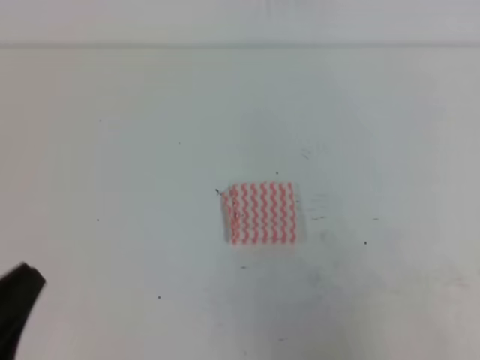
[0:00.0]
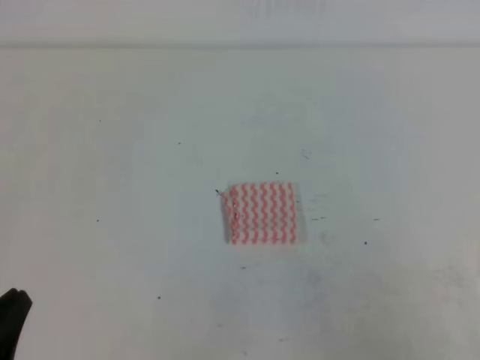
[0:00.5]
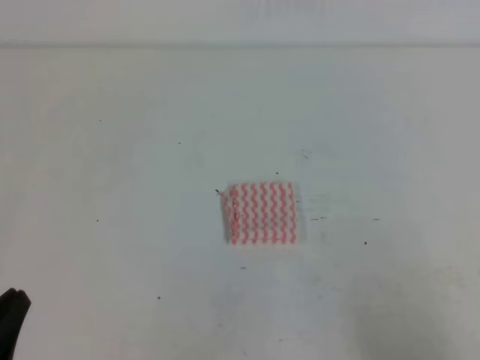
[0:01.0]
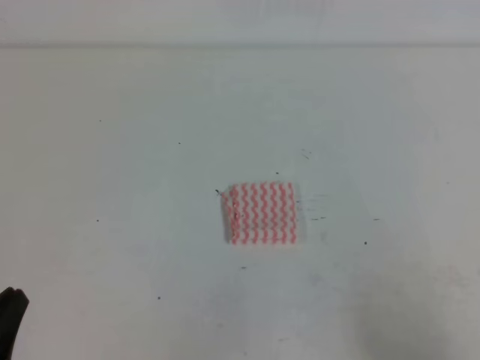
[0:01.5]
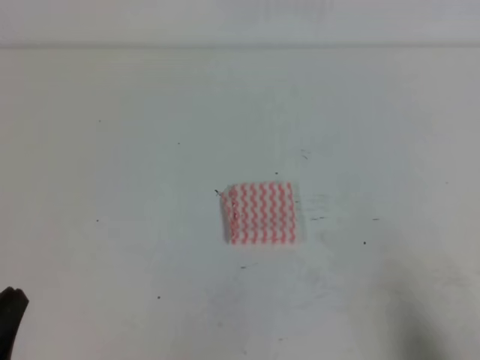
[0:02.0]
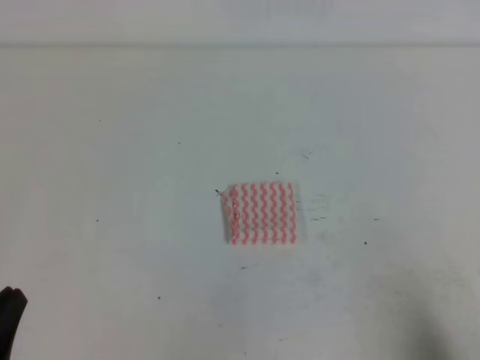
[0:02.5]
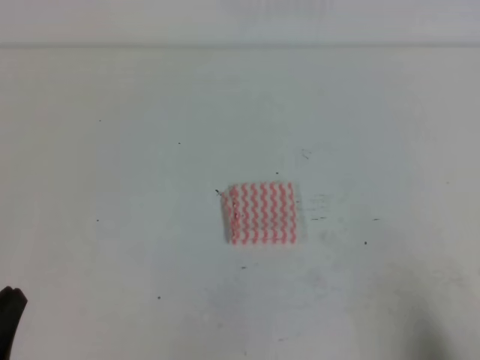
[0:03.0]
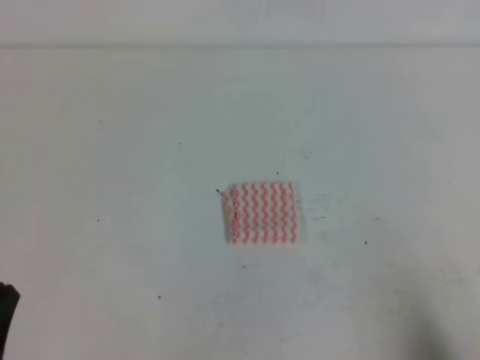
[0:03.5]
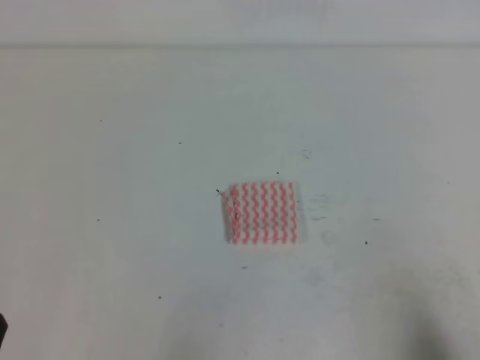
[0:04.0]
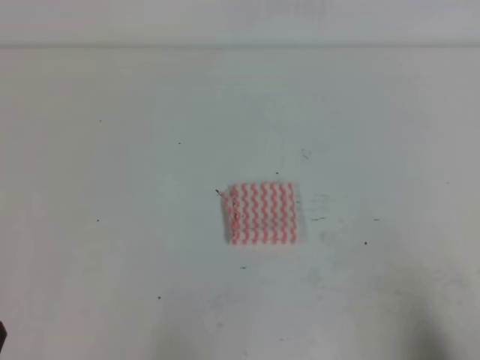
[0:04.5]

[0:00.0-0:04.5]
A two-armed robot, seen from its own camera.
Step, 0.0 to 4.5 s: Fold the towel.
0.0 to 2.0 s: The right gripper moves downward, roughly 15 cm, while the left gripper heads downward, covering approximately 5 cm.

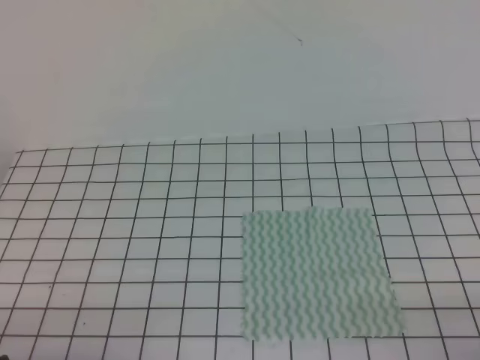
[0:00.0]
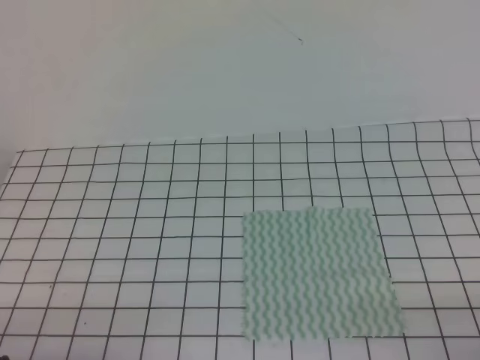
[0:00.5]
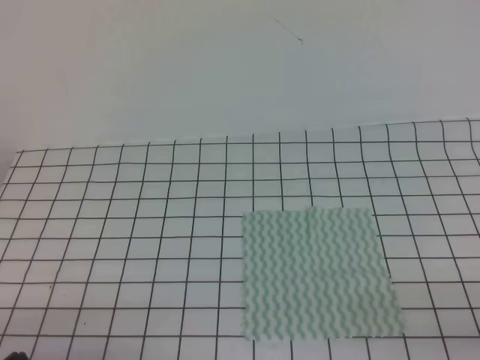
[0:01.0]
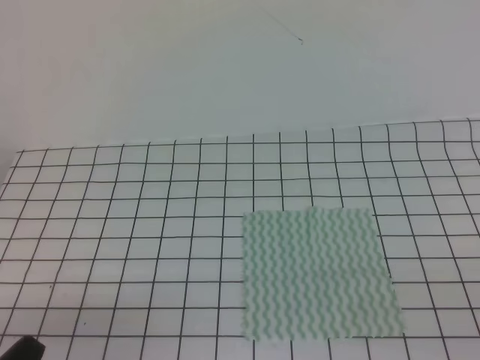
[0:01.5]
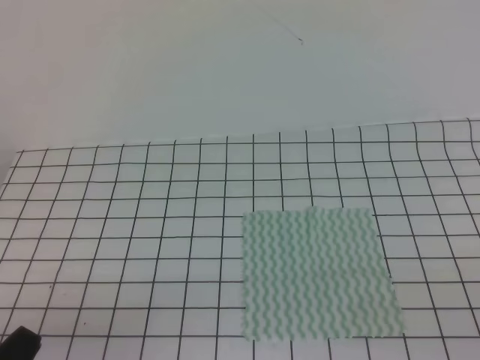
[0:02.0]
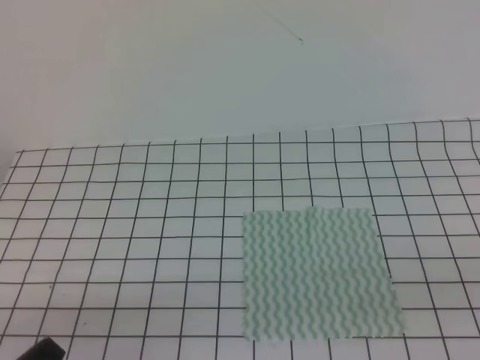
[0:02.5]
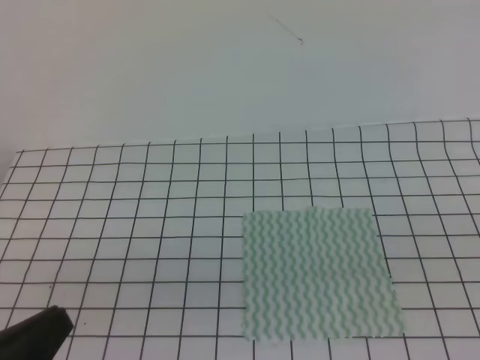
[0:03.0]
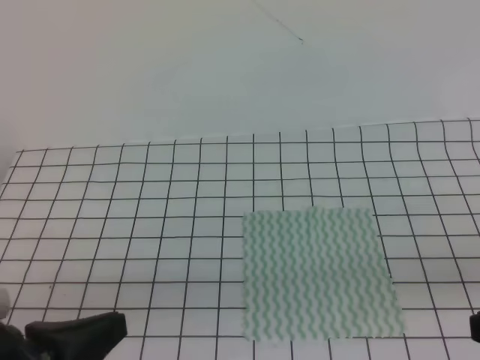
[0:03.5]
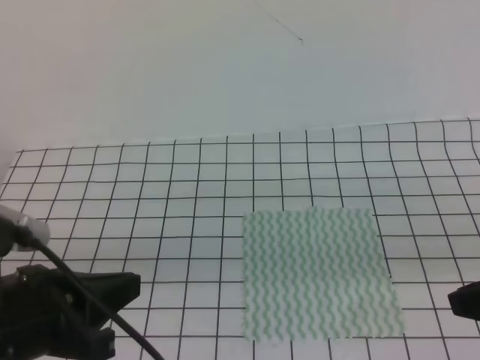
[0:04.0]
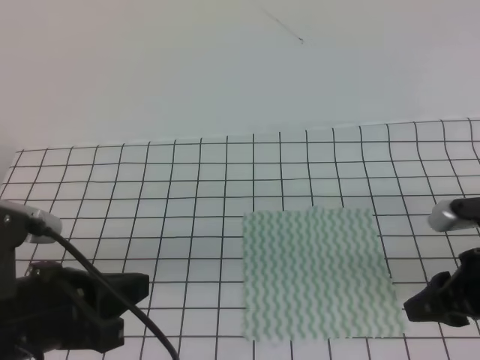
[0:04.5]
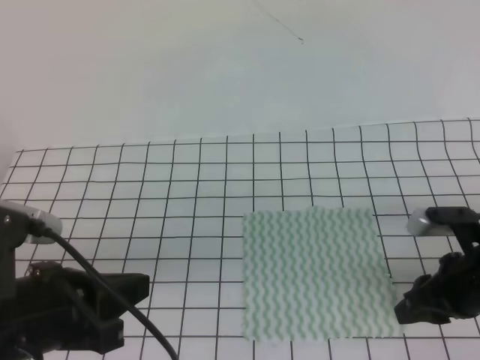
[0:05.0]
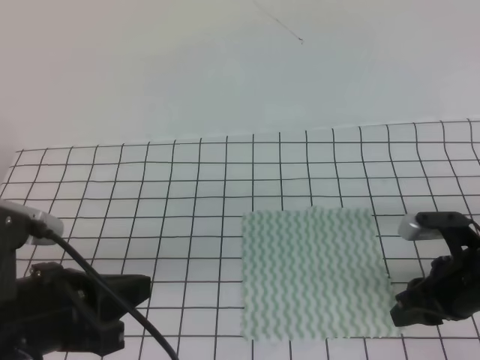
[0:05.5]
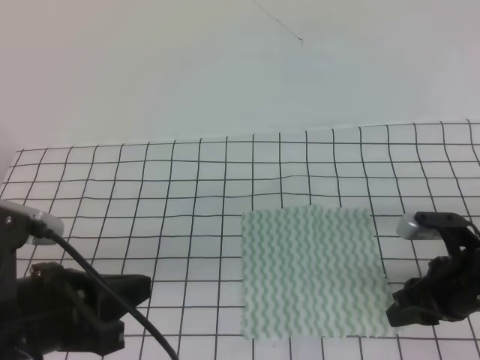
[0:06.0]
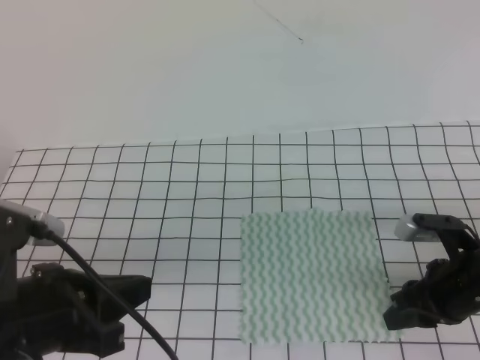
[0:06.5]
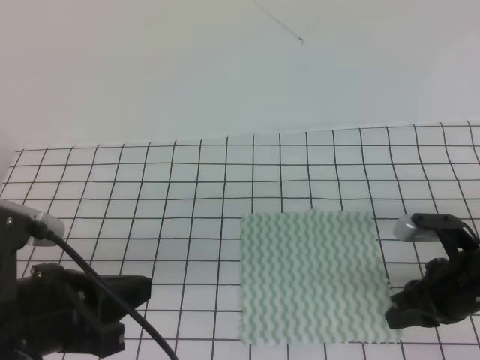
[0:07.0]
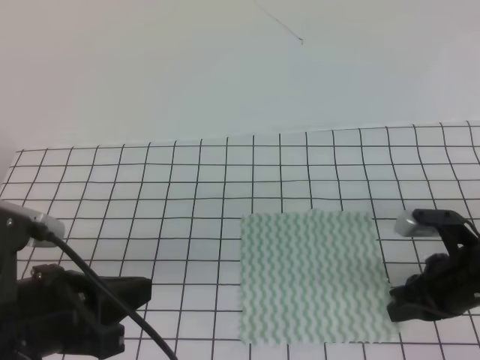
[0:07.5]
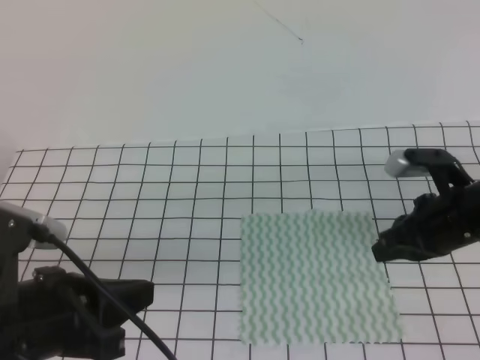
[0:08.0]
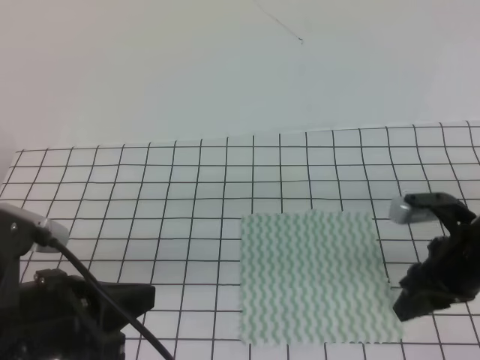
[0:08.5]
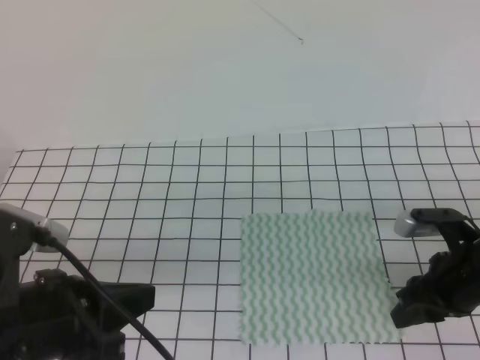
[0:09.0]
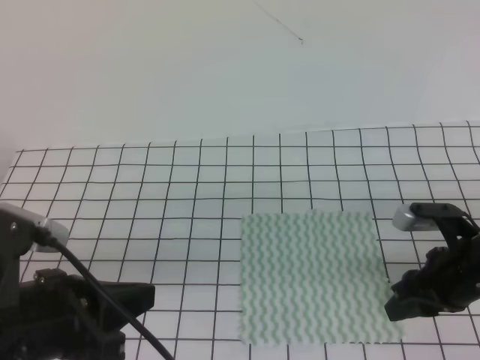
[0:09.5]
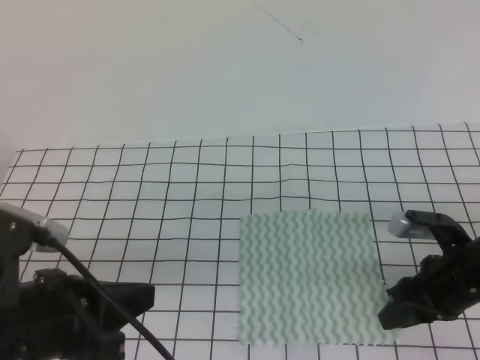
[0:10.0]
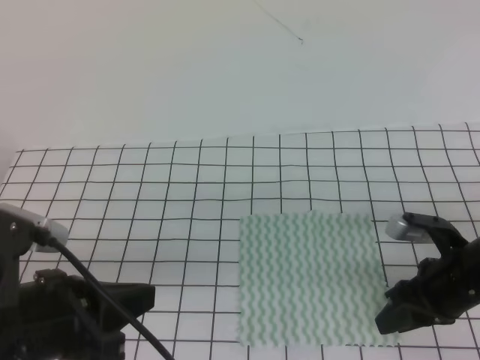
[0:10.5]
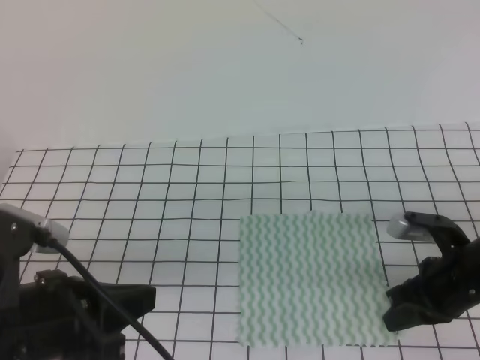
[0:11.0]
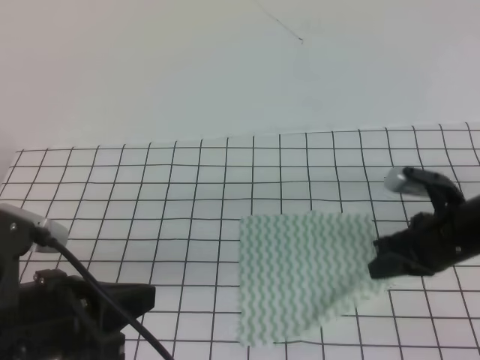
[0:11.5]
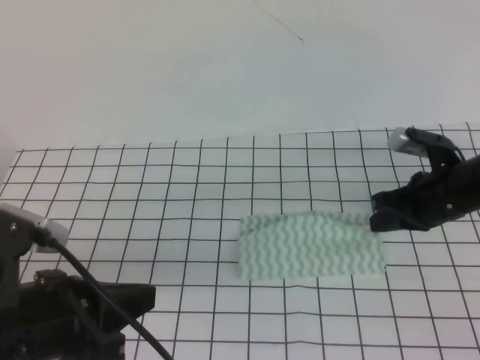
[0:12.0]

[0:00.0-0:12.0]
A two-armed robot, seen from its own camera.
2.0 to 4.0 s: The left gripper heads forward, upward and to the right, covering approximately 15 cm.
4.0 to 6.0 s: The right gripper goes approximately 15 cm downward and forward.
6.0 to 8.0 s: The right gripper changes place by approximately 5 cm, and closes.
8.0 to 10.0 s: The right gripper ends up roughly 5 cm from where it was, and opens its fingers.
10.0 to 12.0 s: The right gripper heads forward, covering some 10 cm, and closes up.

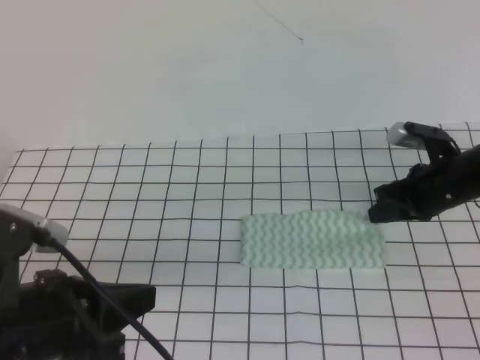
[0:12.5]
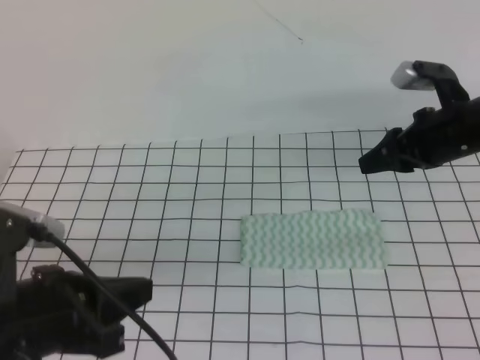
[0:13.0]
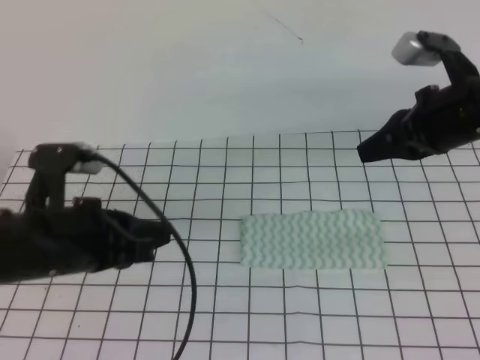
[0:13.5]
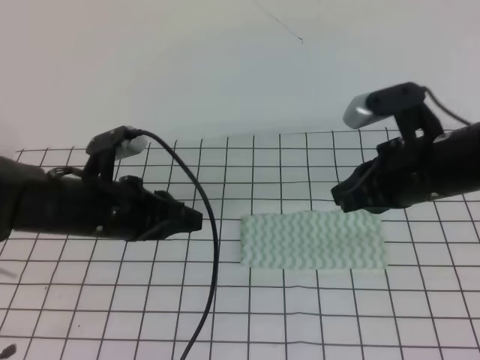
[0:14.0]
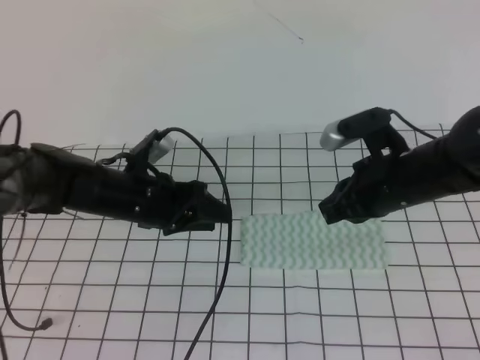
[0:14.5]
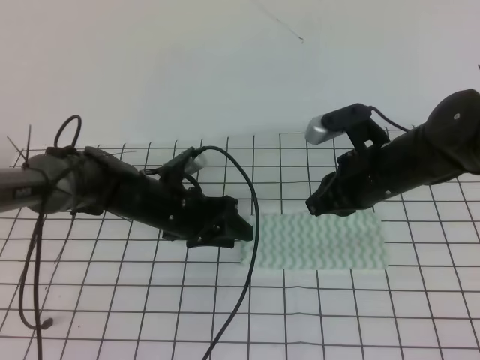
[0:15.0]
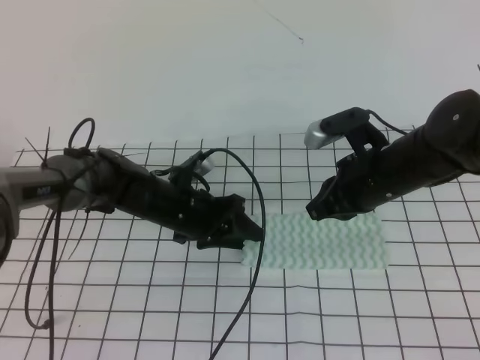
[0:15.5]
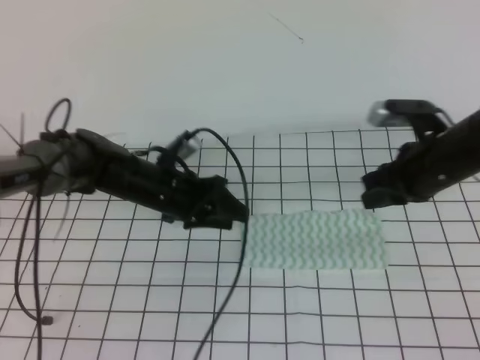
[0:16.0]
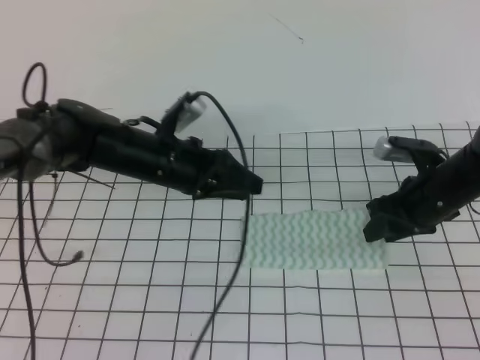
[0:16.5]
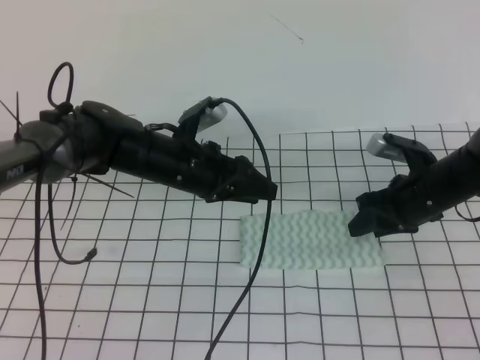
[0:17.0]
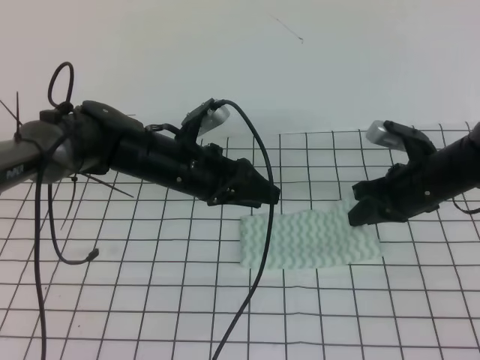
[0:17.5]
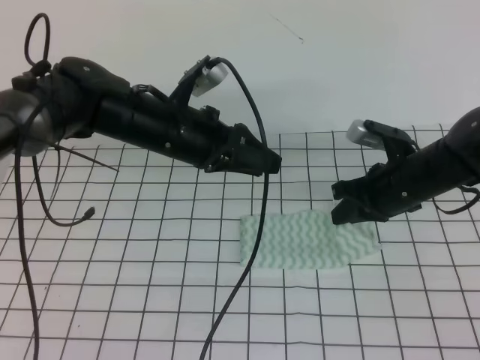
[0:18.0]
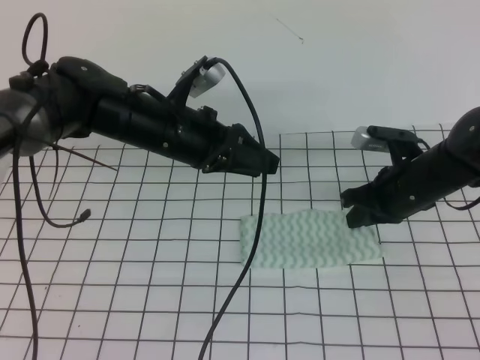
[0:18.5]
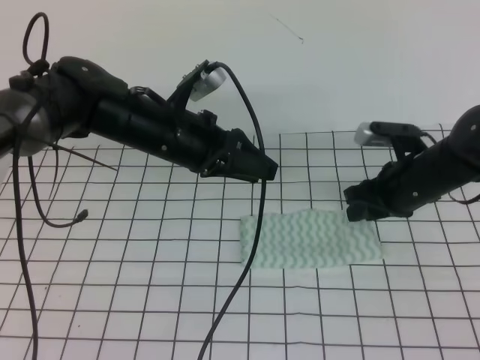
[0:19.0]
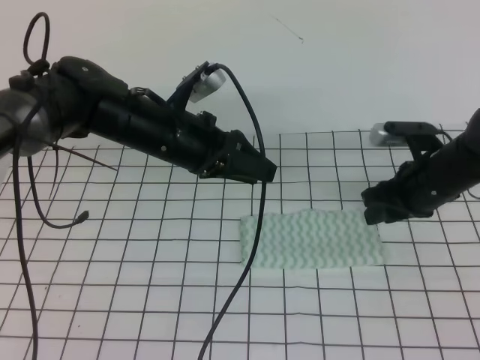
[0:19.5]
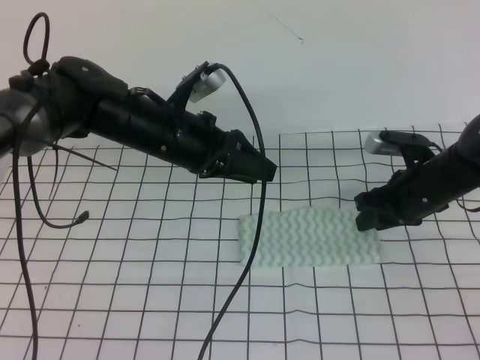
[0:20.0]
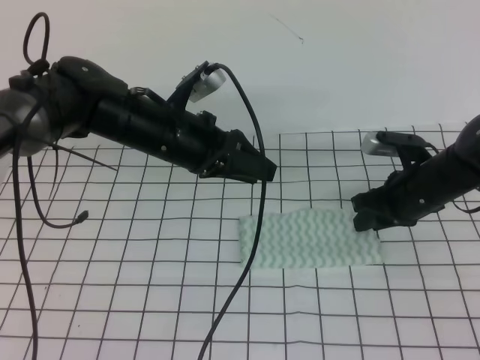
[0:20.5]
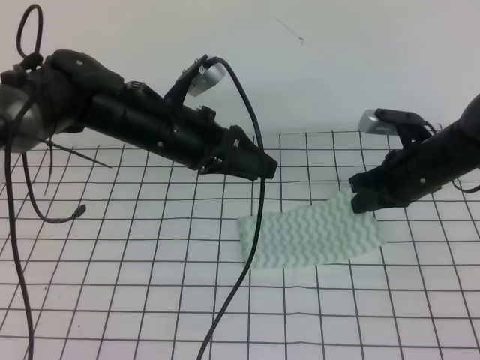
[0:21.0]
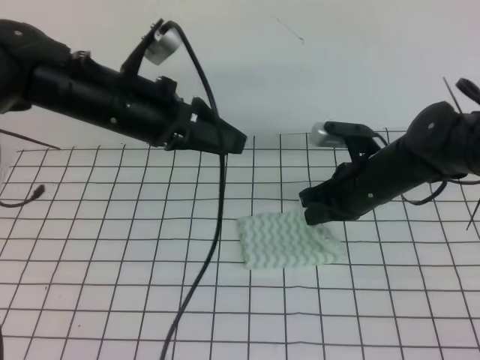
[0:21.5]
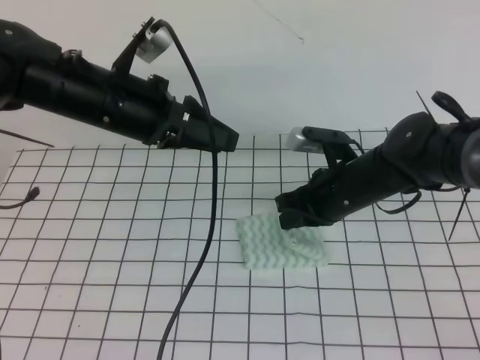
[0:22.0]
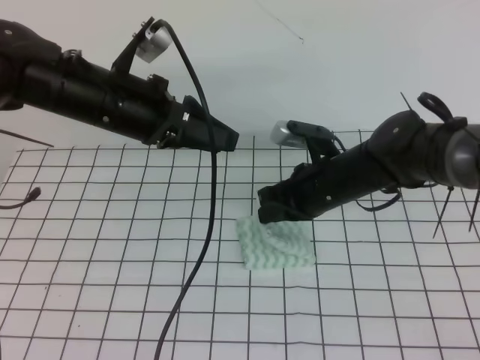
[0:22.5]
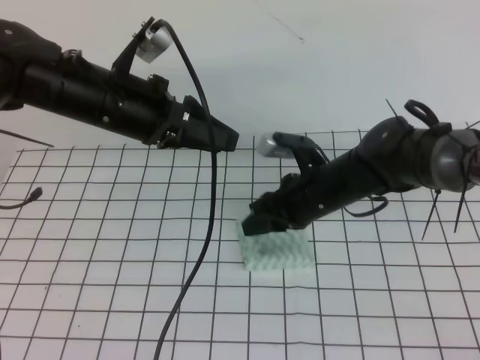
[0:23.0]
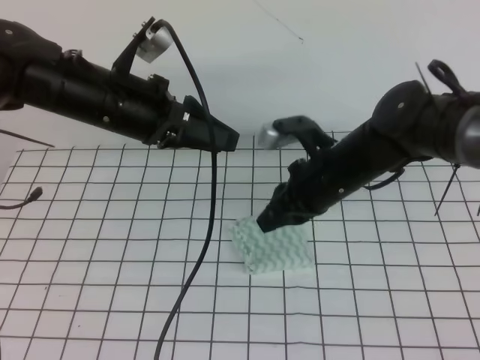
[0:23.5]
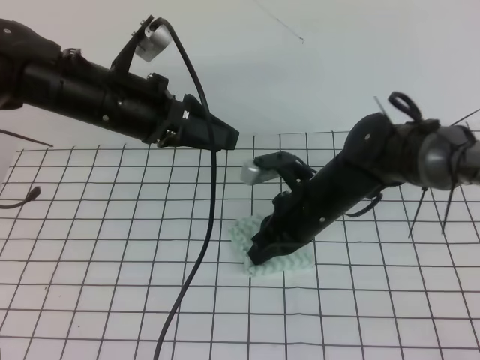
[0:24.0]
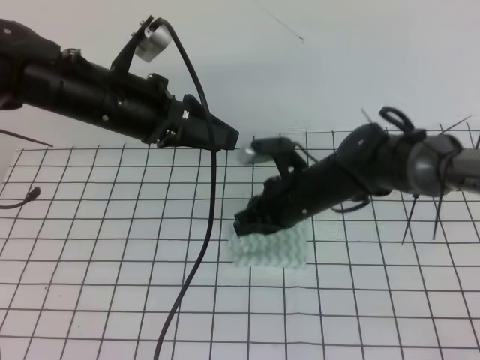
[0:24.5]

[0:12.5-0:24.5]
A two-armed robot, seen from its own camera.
12.5 to 14.5 s: The right gripper shifts roughly 10 cm to the left, upward and backward, and closes its fingers. Meanwhile the left gripper goes roughly 20 cm forward, and opens its fingers.
14.5 to 16.5 s: The left gripper moves some 5 cm, while the right gripper moves to the right and downward, approximately 10 cm, and opens its fingers.
16.5 to 18.5 s: The right gripper closes. Meanwhile the left gripper shifts approximately 5 cm upward.
18.5 to 20.5 s: The right gripper opens up.
20.5 to 22.5 s: The right gripper shifts roughly 10 cm to the left, and closes. Meanwhile the left gripper shifts roughly 5 cm upward.
22.5 to 24.5 s: The right gripper opens and closes again.
